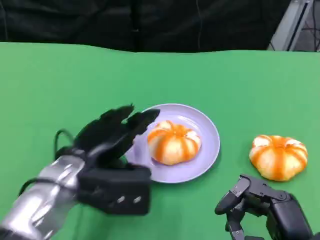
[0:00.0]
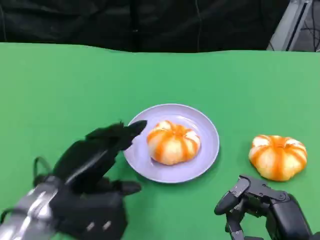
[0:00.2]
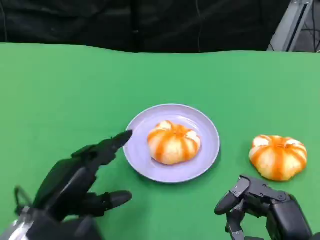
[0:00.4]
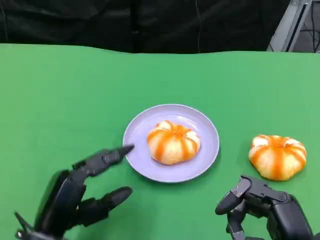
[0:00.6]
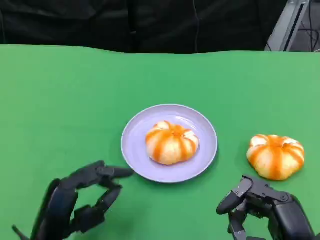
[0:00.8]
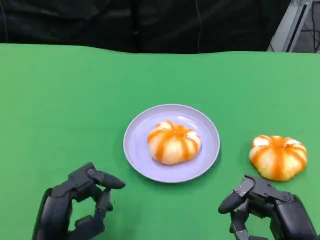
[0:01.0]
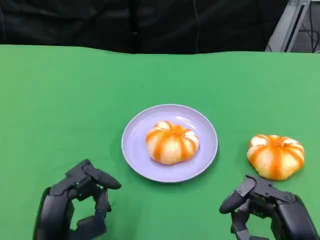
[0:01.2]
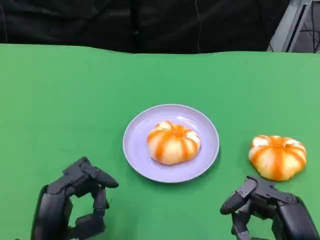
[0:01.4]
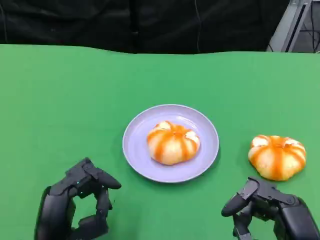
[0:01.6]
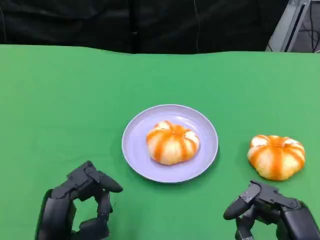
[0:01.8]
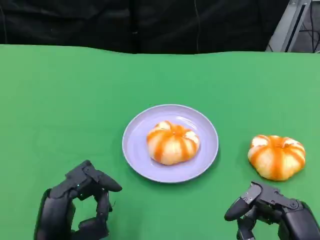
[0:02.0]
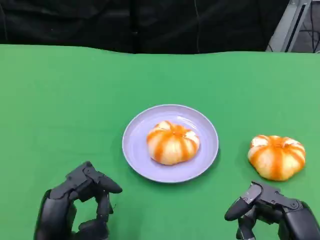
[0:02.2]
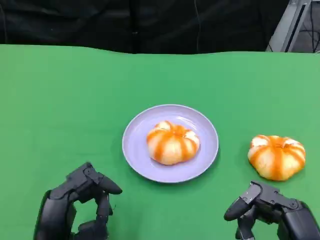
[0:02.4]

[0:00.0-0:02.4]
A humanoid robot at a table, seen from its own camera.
Task of the whole recording: Grasp the bread from the table and place it into the plate.
0:00.0 to 0:01.2: The left hand moves backward and downward, some 10 cm.
0:01.2 to 0:02.4: The two hands keep their place.

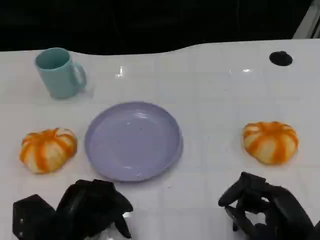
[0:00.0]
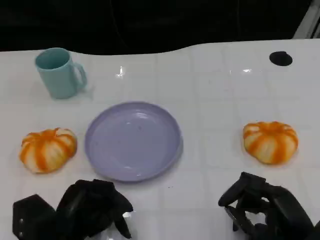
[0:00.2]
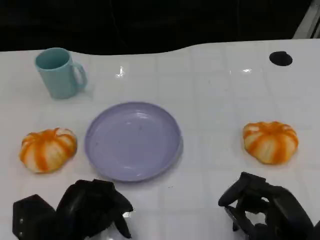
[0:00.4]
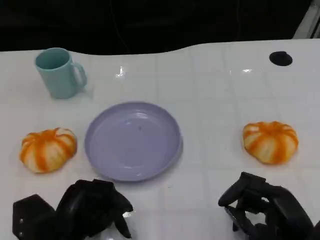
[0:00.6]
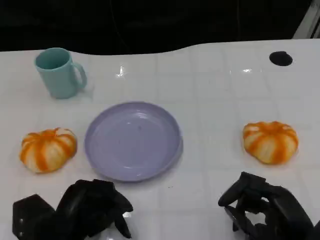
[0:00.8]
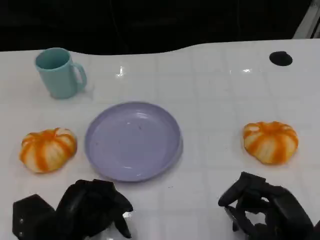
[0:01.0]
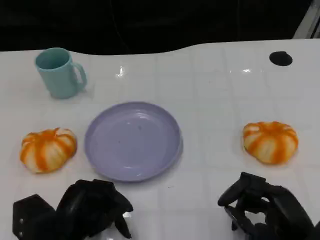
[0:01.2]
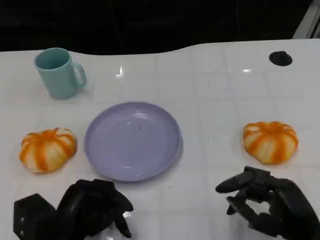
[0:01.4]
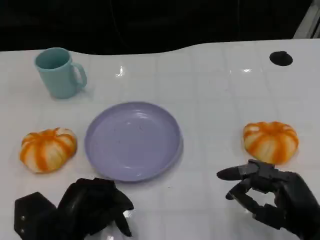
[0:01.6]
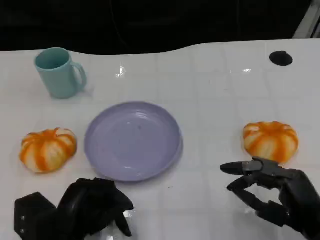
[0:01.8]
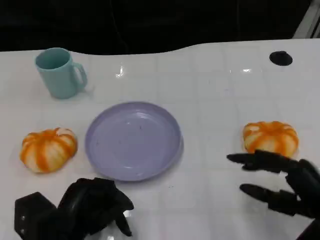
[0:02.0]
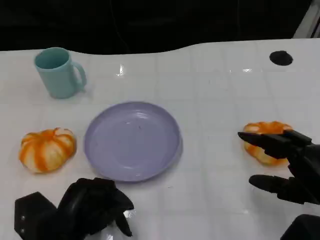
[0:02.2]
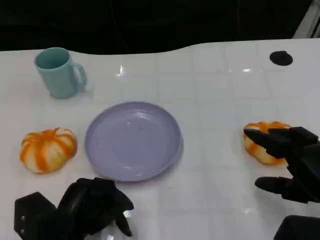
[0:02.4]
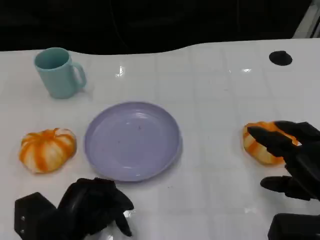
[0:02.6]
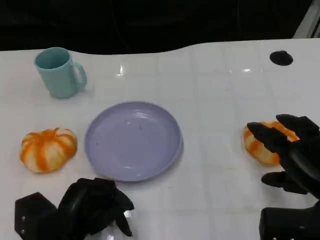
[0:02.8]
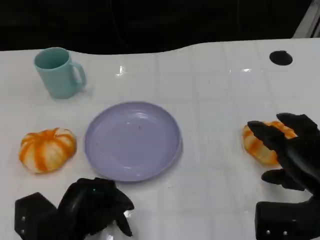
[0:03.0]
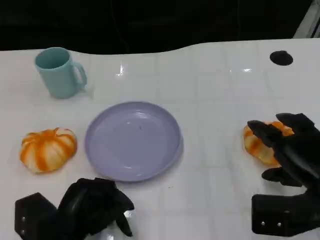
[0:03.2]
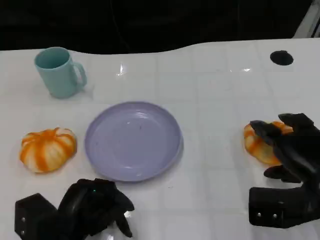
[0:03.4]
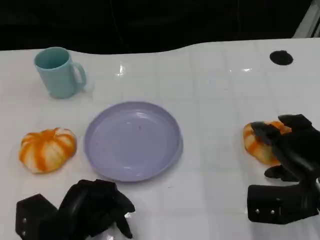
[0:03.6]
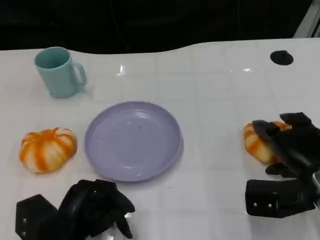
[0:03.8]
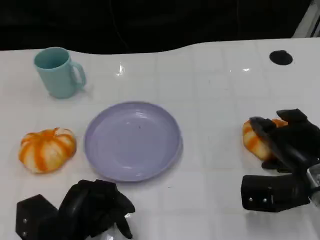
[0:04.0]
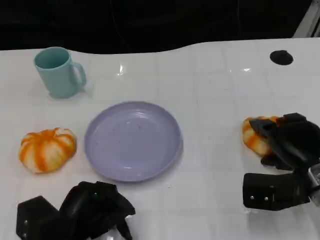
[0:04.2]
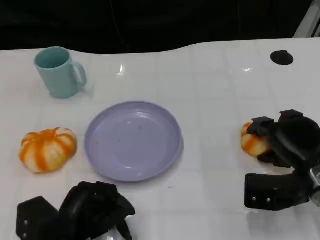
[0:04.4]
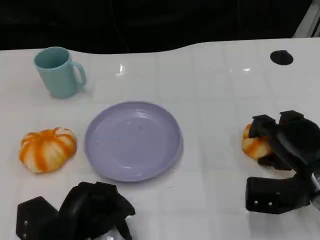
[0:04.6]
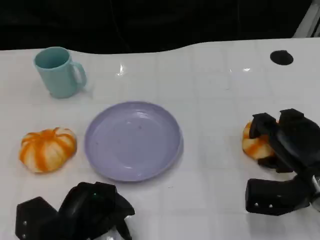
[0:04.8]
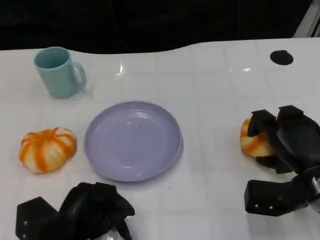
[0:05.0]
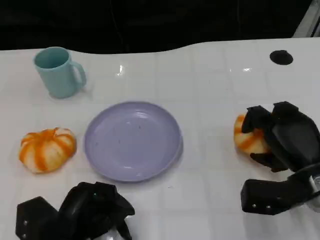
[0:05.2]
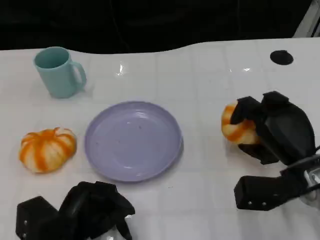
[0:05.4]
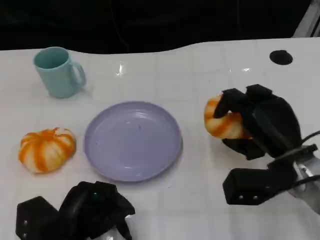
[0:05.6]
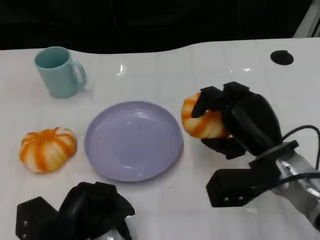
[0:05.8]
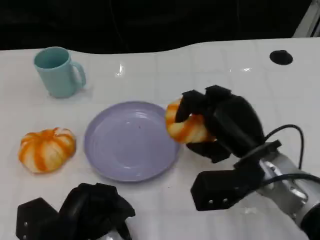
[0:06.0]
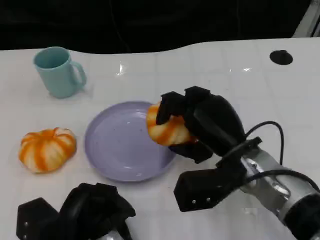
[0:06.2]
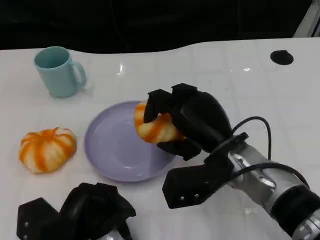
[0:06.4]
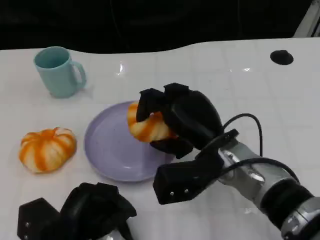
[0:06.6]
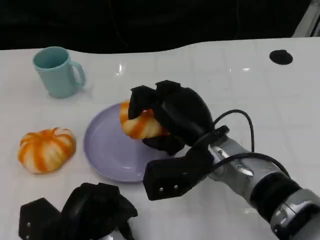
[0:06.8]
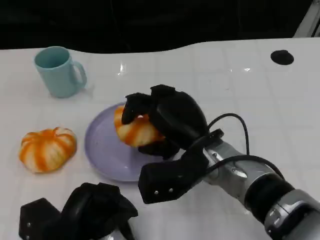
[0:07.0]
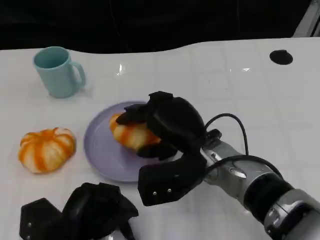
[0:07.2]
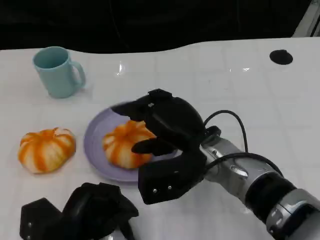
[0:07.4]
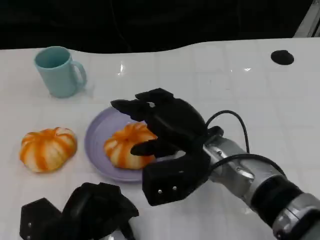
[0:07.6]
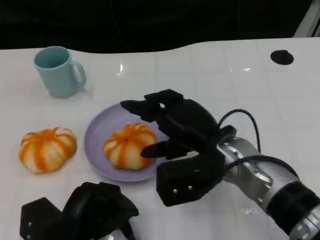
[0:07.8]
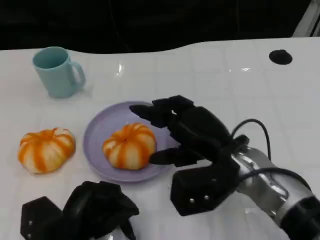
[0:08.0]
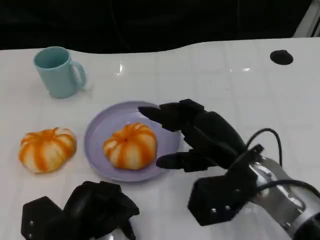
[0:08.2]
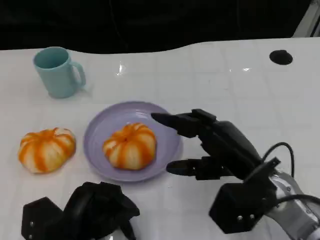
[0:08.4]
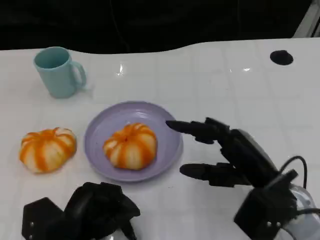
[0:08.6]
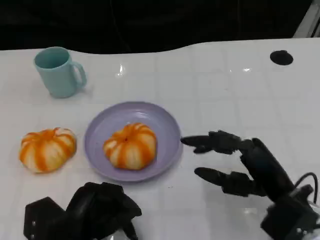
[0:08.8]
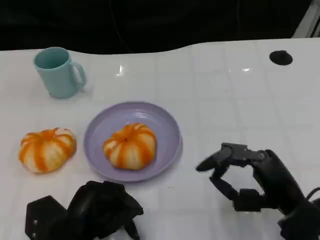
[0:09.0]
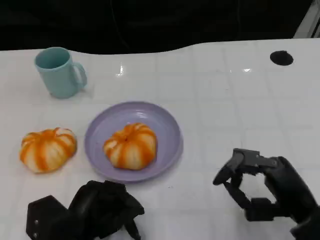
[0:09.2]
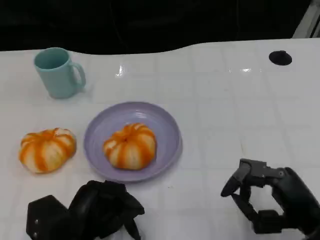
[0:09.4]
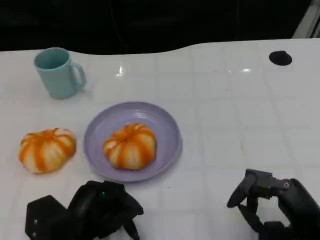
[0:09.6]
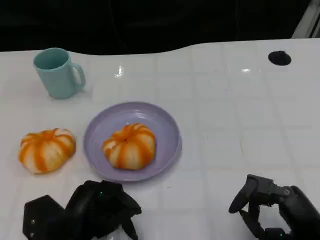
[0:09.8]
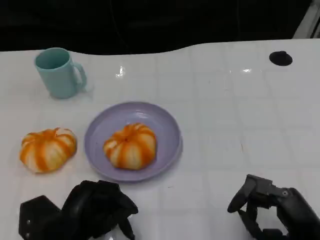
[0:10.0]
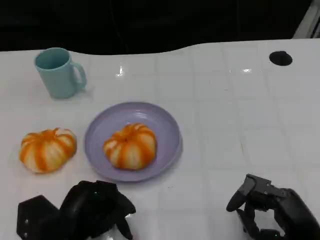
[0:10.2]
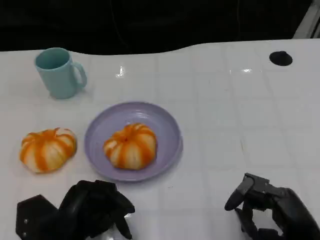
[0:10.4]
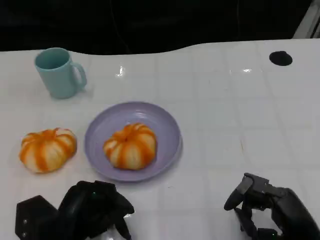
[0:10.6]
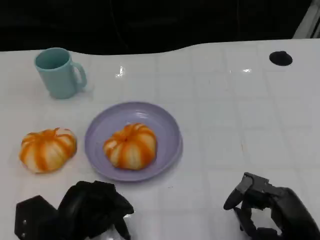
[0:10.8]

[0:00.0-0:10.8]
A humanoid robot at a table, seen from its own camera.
Task of the whole recording: Grasp the bread from the table and place it into the plate.
0:00.0 to 0:01.6: The hands stay close to where they were, moving slightly.
0:01.6 to 0:03.0: The right hand goes approximately 5 cm forward.
0:03.0 to 0:04.6: The right hand travels forward by about 5 cm.
0:04.6 to 0:06.2: The right hand heads to the left and upward, covering about 15 cm.
0:06.2 to 0:07.8: The hands stay close to where they were, moving slightly.
0:07.8 to 0:09.2: The right hand is displaced to the right, backward and downward by about 15 cm.
0:09.2 to 0:10.8: The hands move only a little.

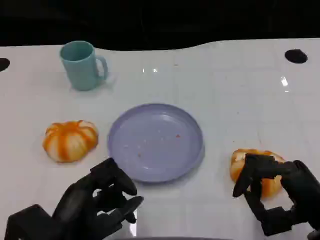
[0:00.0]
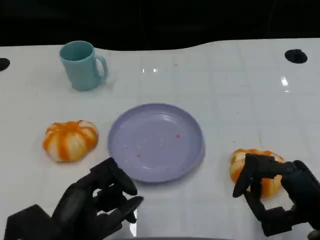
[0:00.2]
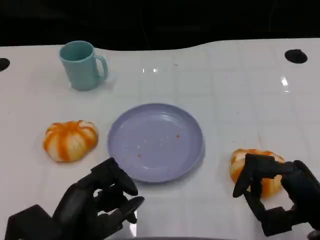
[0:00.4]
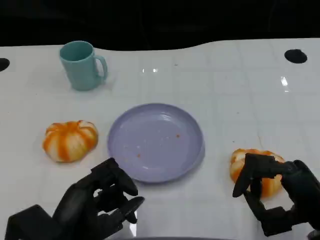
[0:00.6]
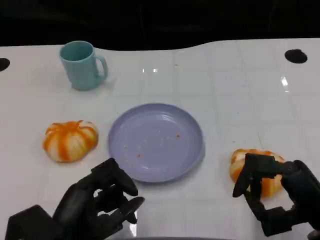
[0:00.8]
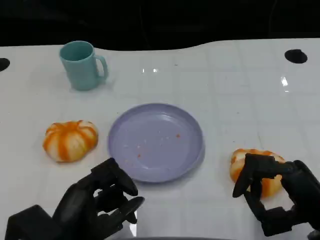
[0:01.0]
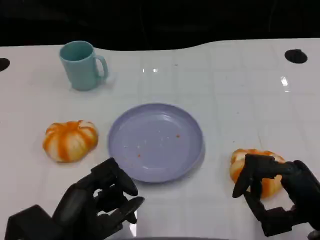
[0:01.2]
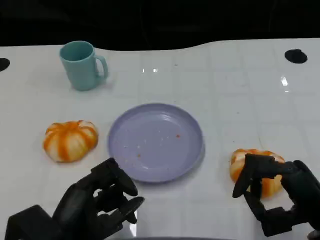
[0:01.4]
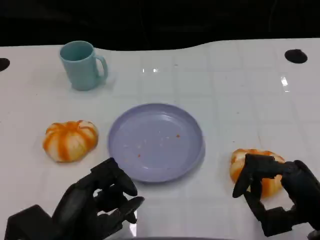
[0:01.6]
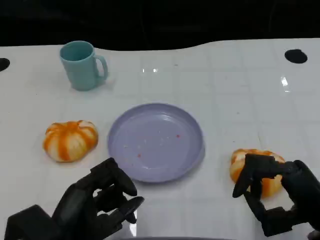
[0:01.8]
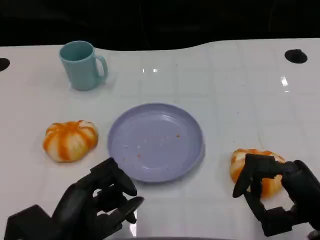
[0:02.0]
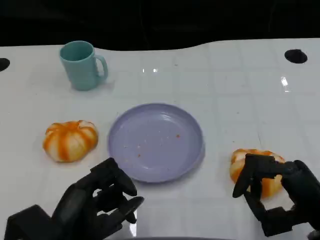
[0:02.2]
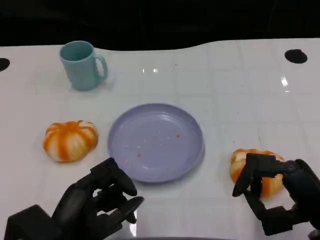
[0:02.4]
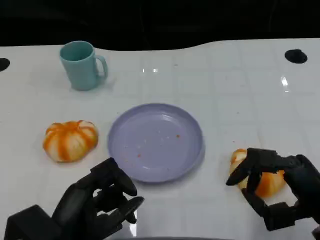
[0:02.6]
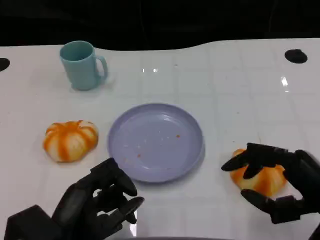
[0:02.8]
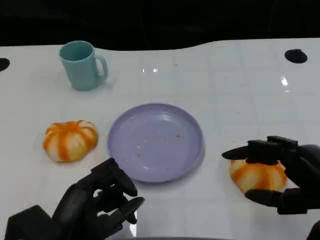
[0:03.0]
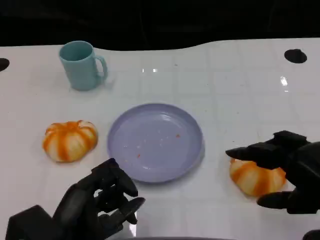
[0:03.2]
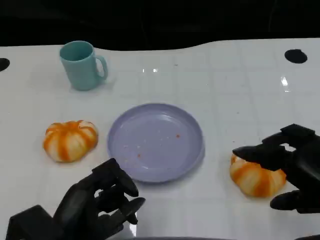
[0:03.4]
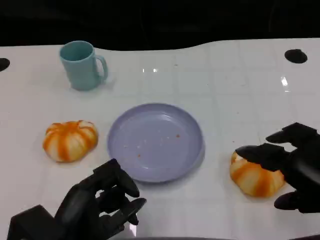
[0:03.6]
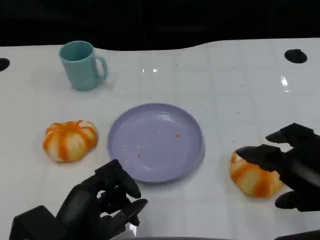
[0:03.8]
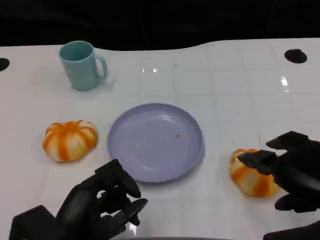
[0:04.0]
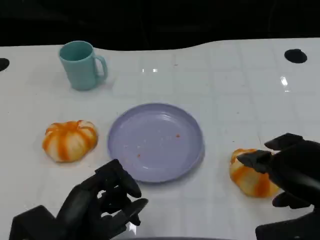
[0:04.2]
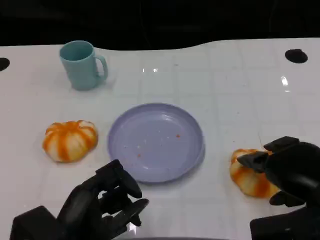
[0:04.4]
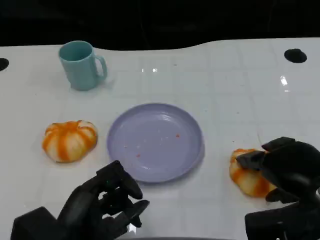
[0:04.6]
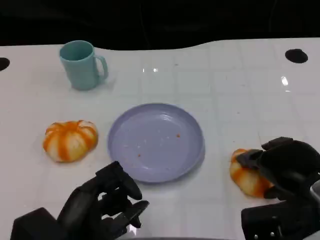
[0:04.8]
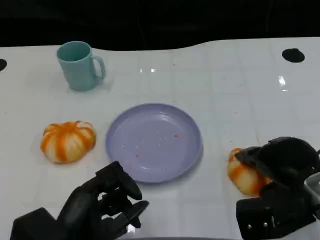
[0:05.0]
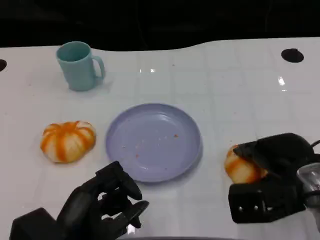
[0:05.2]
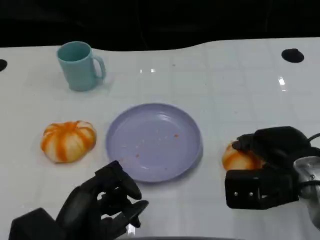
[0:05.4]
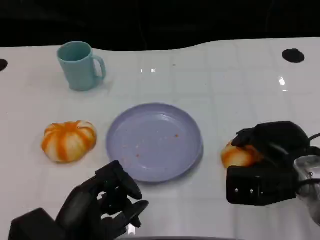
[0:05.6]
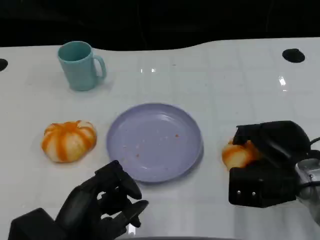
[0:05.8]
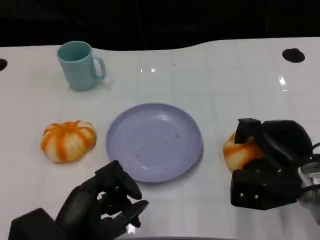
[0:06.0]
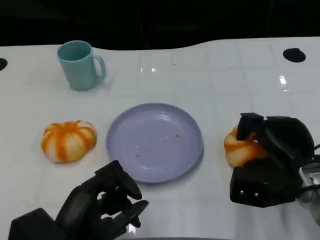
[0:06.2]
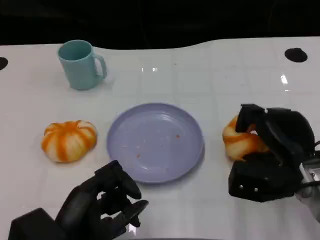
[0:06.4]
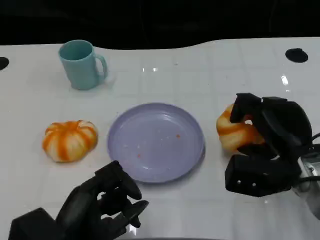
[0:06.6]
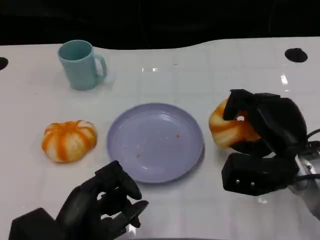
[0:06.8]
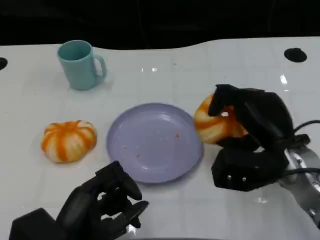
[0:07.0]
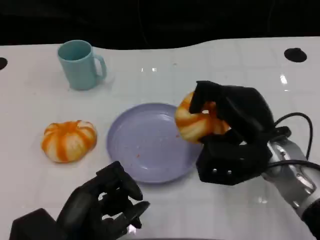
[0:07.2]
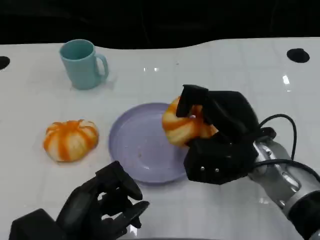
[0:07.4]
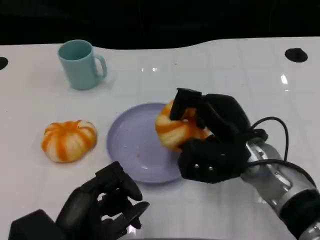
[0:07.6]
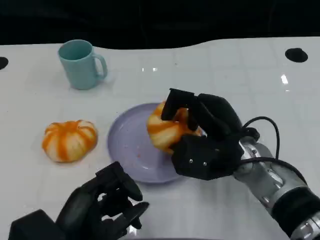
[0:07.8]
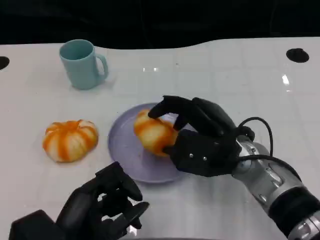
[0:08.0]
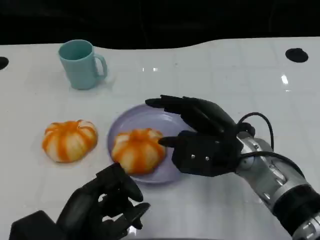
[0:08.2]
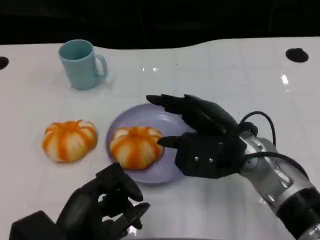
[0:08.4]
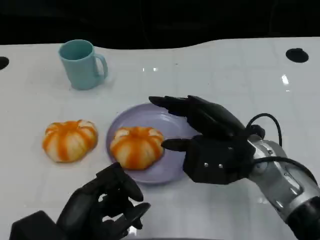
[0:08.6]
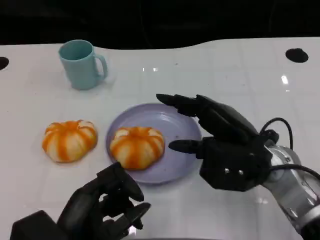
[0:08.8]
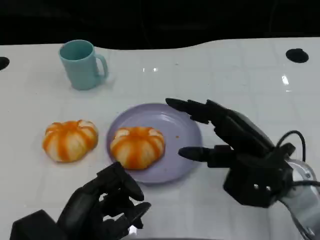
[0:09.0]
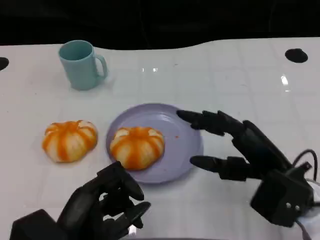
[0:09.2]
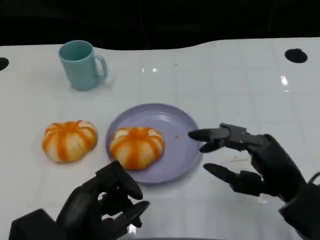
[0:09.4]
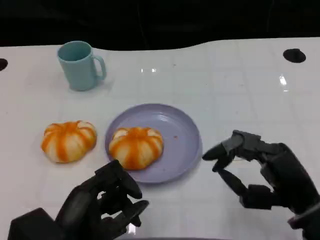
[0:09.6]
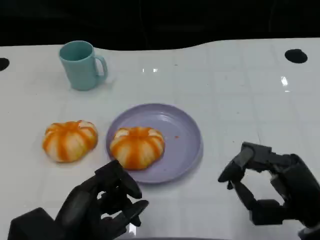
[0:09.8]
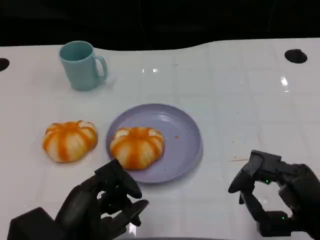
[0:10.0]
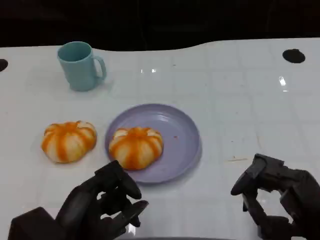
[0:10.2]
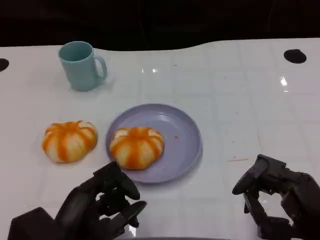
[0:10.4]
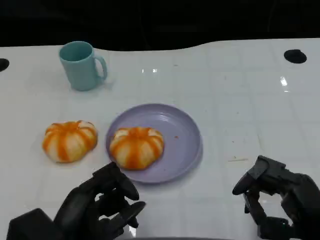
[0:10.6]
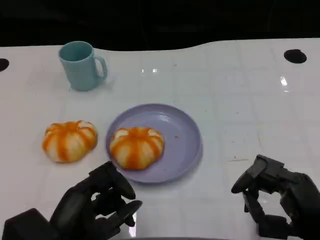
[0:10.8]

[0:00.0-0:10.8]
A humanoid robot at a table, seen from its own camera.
Task of the whole recording: Grasp the bread from the table and place it into the plate.
0:00.0 to 0:01.6: The two hands keep their place.
0:01.6 to 0:03.0: The right hand travels upward by some 5 cm.
0:03.0 to 0:04.6: The right hand shifts by about 5 cm.
0:04.6 to 0:06.2: The right hand shifts about 5 cm forward.
0:06.2 to 0:07.8: The right hand moves to the left, approximately 10 cm.
0:07.8 to 0:09.2: The right hand goes roughly 10 cm to the right and backward.
0:09.2 to 0:10.8: The right hand moves backward, about 5 cm.
